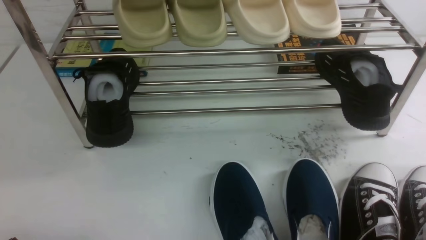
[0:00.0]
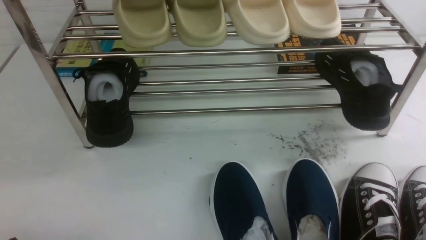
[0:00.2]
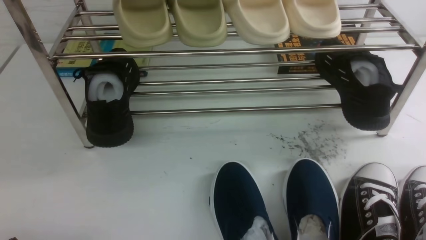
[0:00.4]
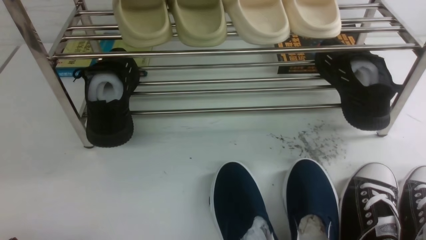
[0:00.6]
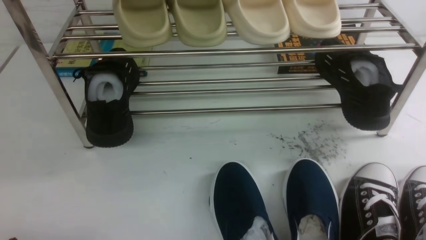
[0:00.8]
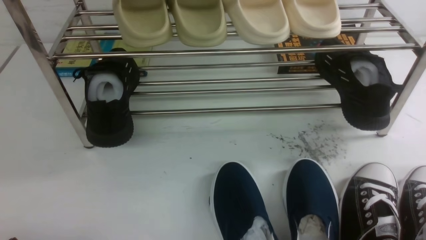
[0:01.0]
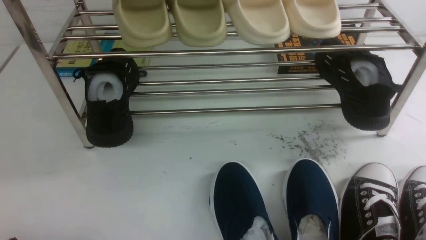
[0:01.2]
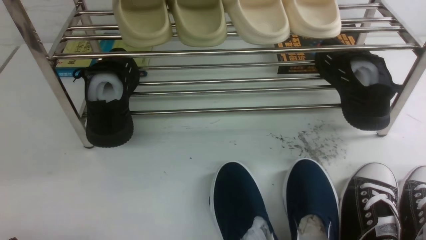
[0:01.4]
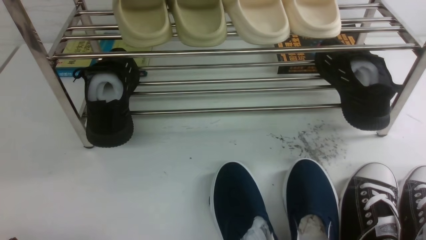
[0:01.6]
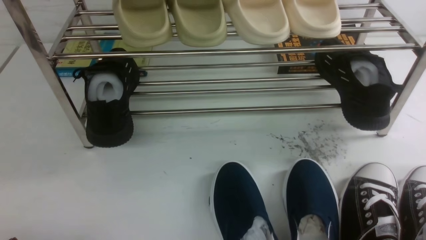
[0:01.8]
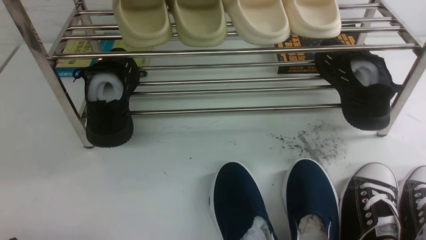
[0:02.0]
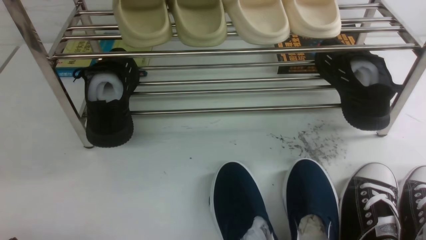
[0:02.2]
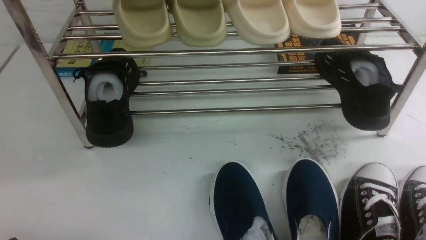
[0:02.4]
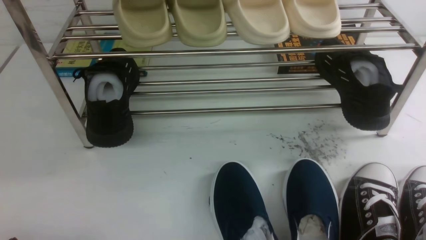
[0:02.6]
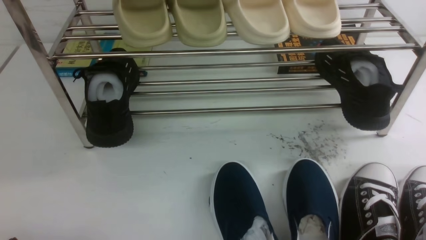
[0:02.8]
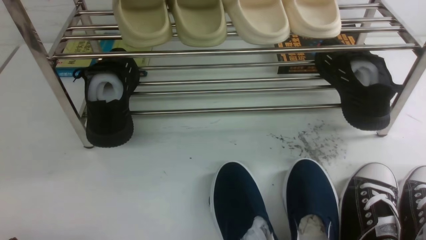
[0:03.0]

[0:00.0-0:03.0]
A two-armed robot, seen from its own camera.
0:01.6 to 0:03.0: The two grippers keep their place.

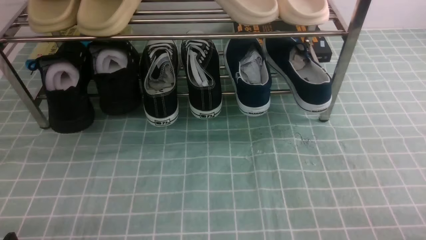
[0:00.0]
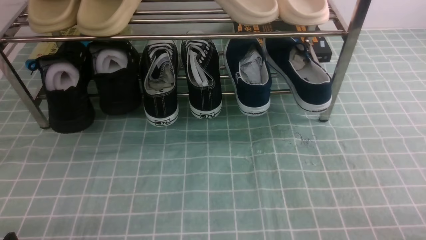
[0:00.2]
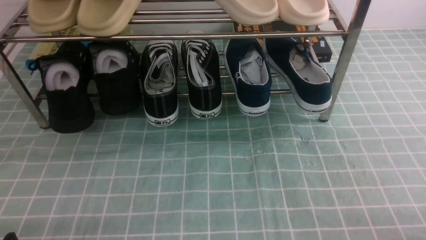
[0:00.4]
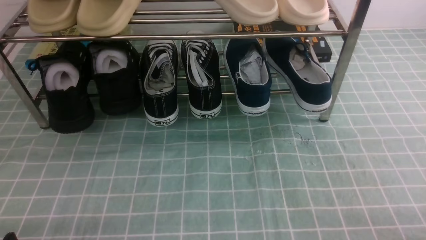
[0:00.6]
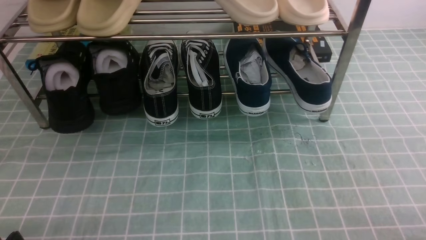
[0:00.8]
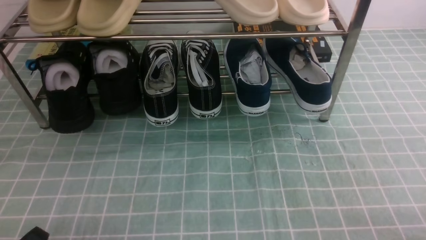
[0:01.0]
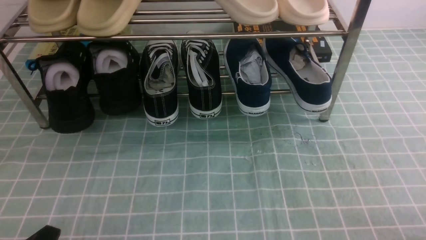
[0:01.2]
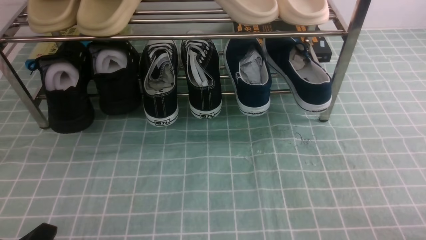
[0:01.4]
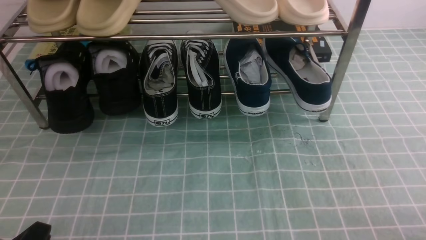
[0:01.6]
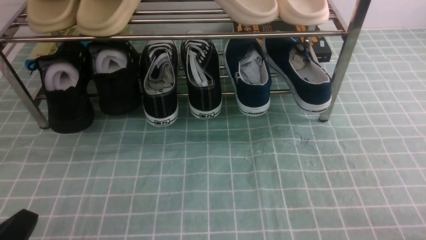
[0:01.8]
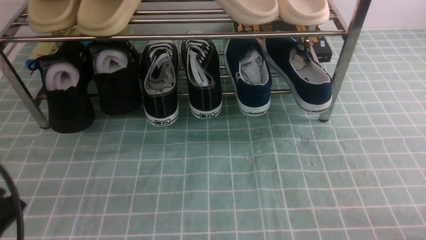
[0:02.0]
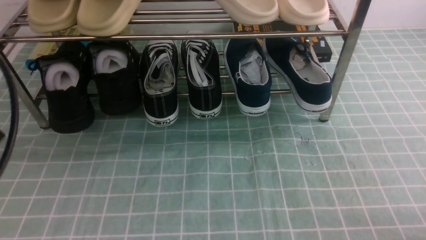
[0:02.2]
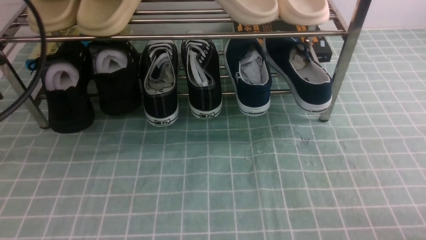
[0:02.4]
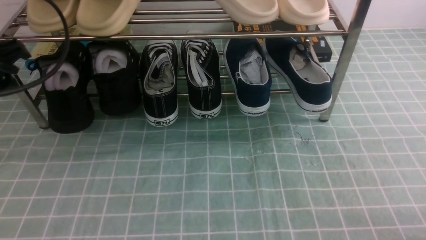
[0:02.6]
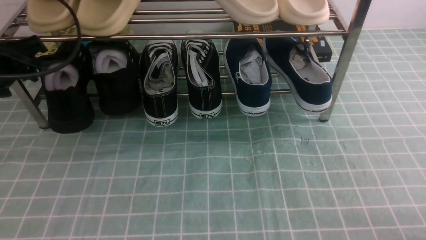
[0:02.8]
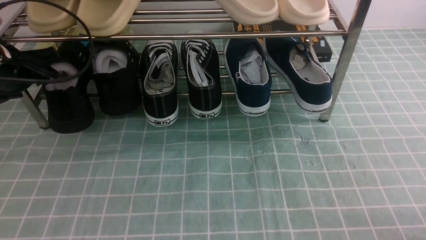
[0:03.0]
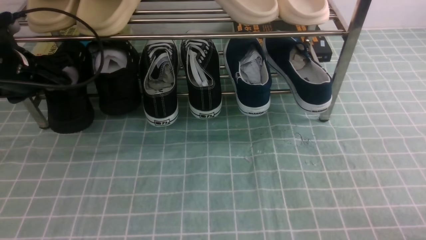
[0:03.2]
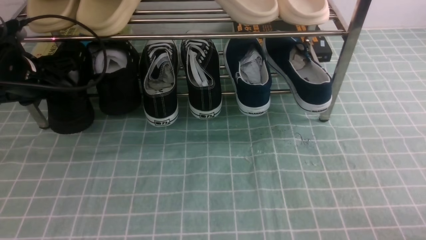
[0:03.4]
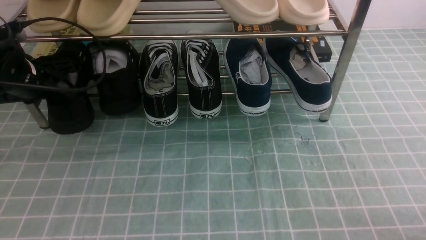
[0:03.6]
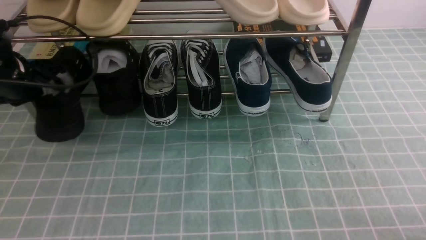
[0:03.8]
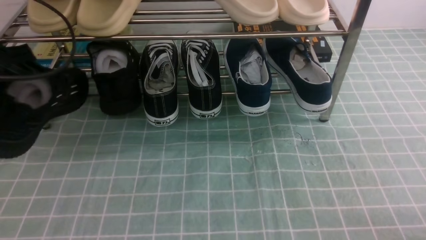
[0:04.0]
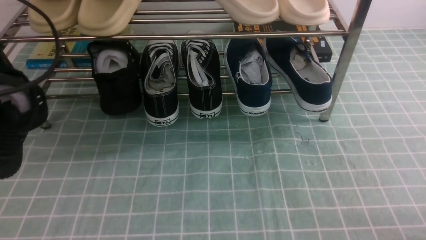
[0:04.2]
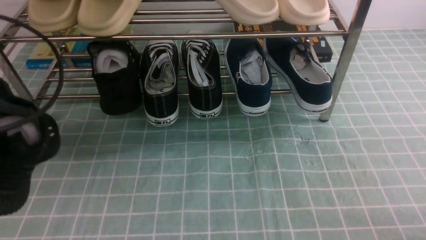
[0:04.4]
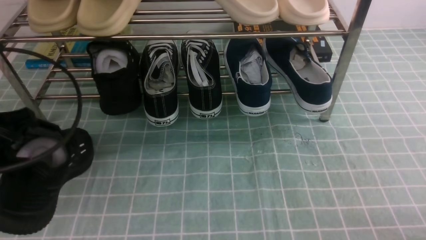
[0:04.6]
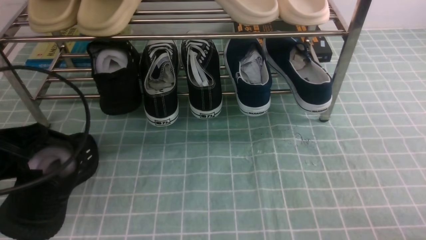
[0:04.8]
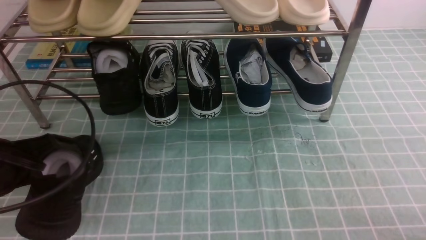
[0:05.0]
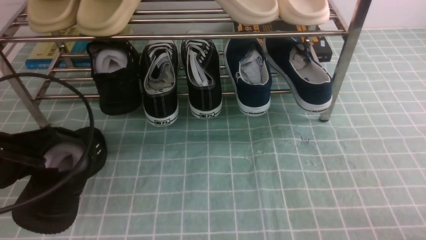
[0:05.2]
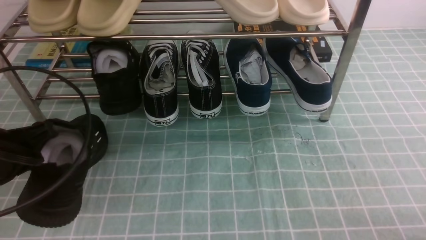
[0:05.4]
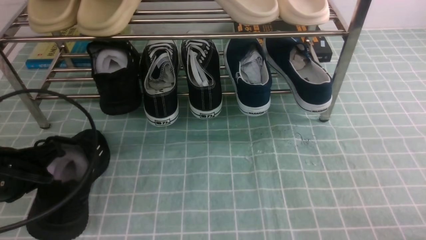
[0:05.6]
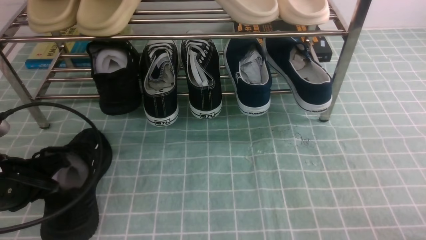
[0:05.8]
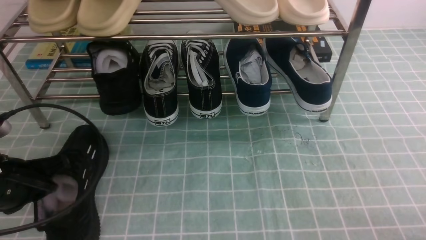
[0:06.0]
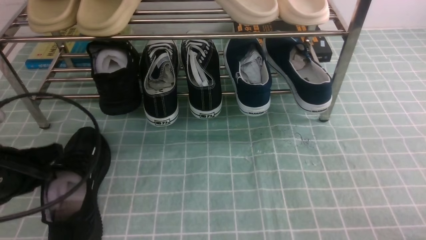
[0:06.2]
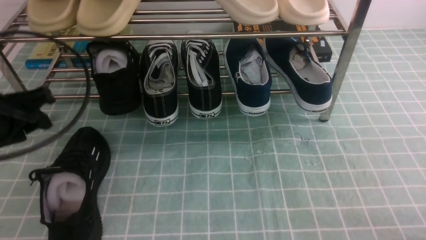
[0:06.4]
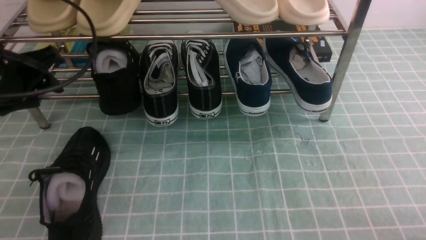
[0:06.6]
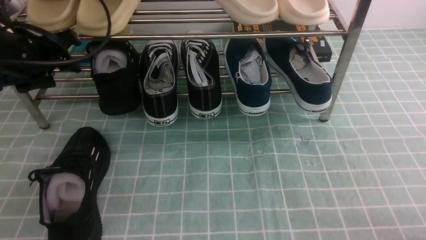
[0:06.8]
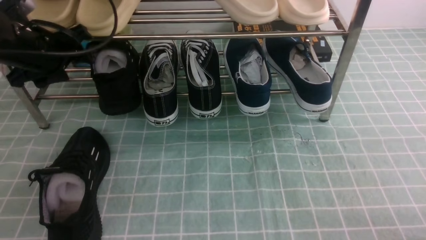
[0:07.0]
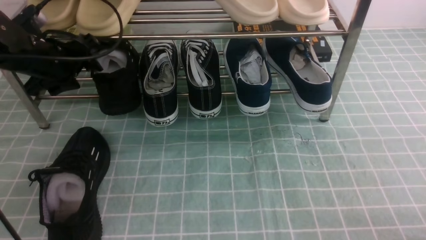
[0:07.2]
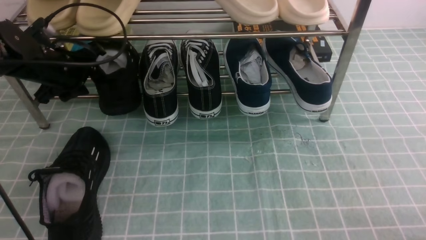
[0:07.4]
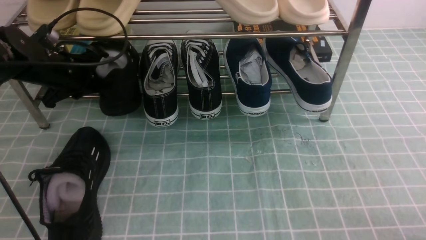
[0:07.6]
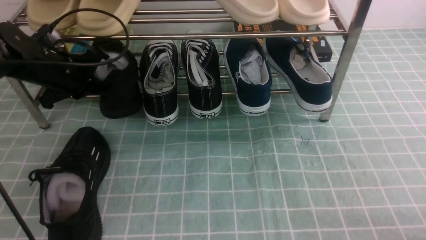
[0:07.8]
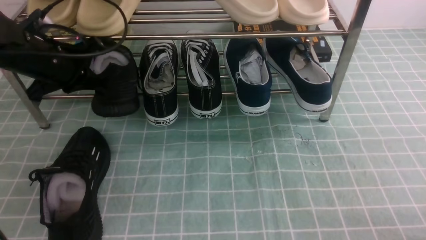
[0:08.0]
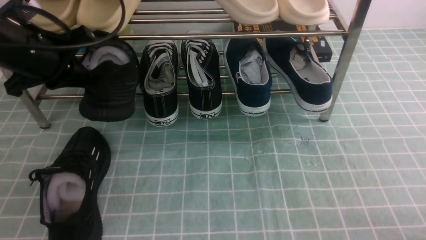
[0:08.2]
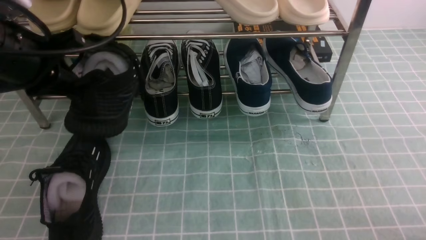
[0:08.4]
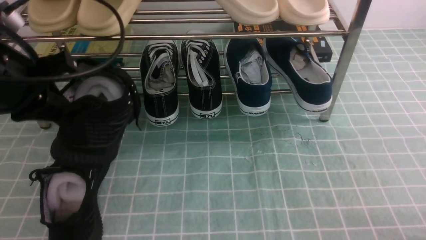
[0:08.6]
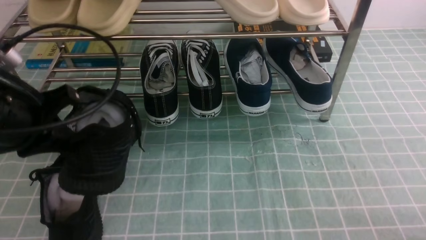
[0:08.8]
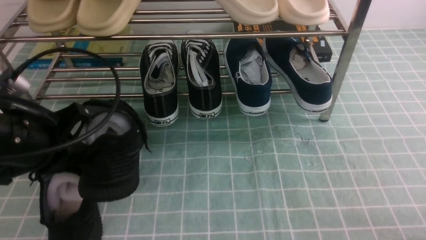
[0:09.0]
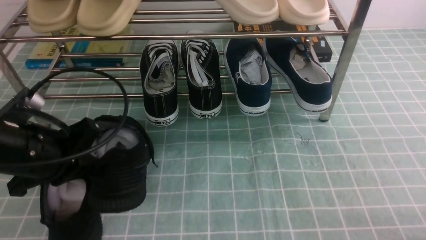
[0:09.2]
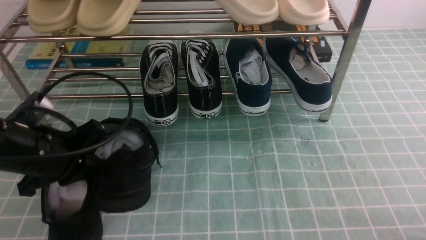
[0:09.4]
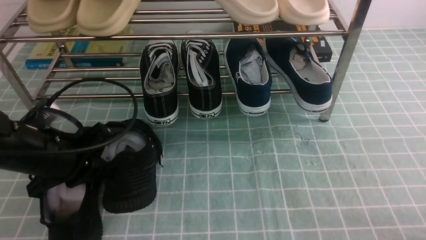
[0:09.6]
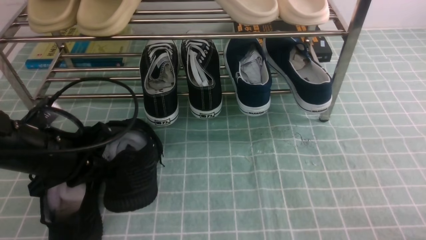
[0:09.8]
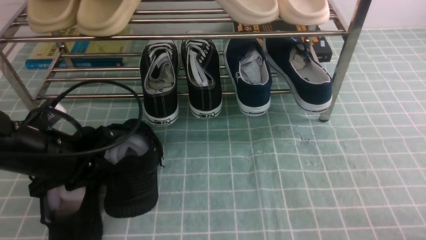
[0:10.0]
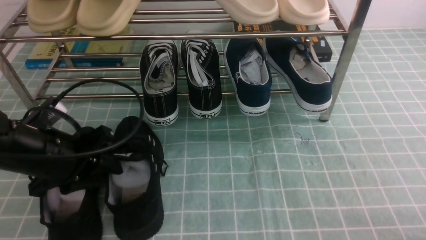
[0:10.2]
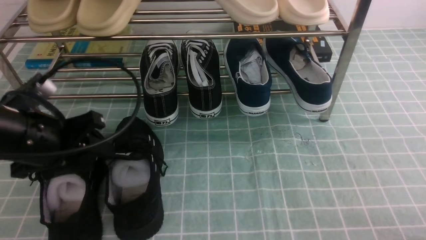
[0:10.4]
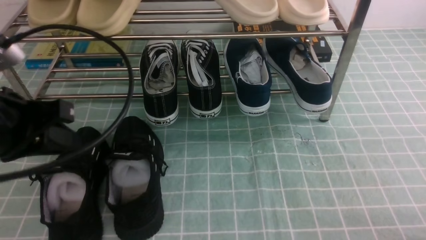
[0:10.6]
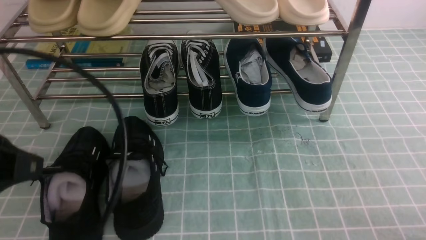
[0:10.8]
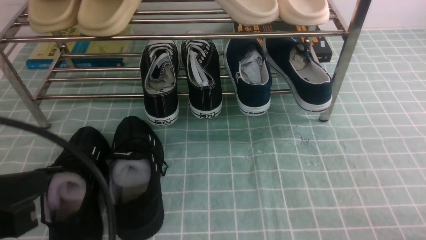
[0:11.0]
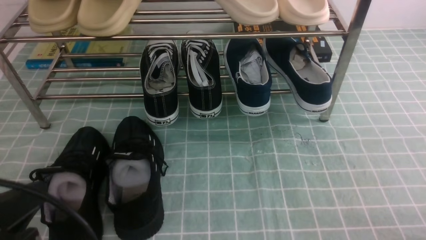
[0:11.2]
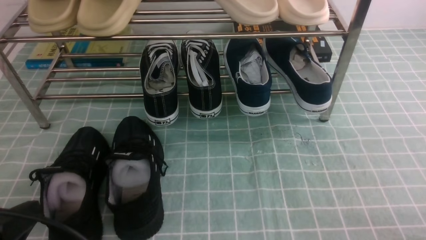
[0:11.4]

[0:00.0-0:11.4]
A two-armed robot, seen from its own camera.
Step, 0:00.0 to 0:03.6: use the left arm to clamp a shoe on the left side of the shoe rack.
Step, 0:03.8 to 0:06.2: Use your left arm to remove the clamped shoe from the shoe rack and put it down.
Step, 0:06.4 to 0:07.6: use the left arm to clamp a shoe on the left side of the shoe rack.
Step, 0:07.8 to 0:10.4: Use your left arm to remove the clamped shoe from the shoe rack and put it down.
0:01.4 to 0:02.8: The left gripper travels forward and upward by some 30 cm, and opens its fingers.
0:02.8 to 0:04.2: The left gripper goes approximately 5 cm backward, and closes.
0:04.2 to 0:05.6: The left gripper heads downward, covering some 10 cm.
0:05.6 to 0:07.2: The left gripper is displaced forward by approximately 20 cm, and opens.
0:07.2 to 0:08.6: The left gripper shifts roughly 15 cm backward and upward, and closes up.
0:08.6 to 0:10.0: The left gripper is displaced downward by some 10 cm.
0:10.0 to 0:11.4: The left gripper travels backward by approximately 20 cm, and closes its fingers.

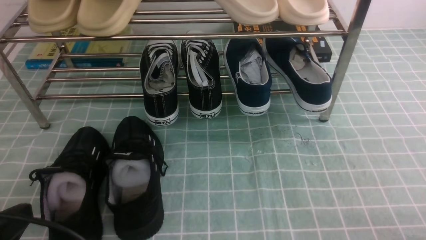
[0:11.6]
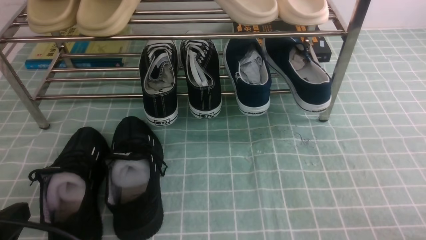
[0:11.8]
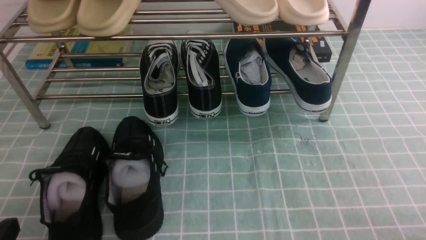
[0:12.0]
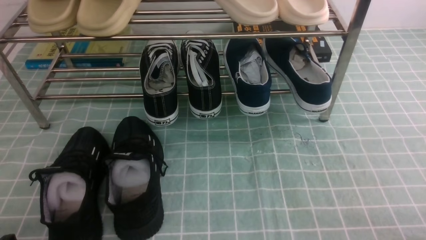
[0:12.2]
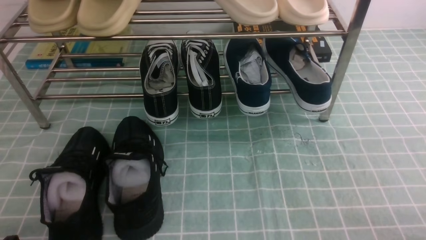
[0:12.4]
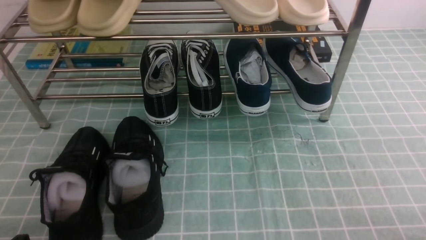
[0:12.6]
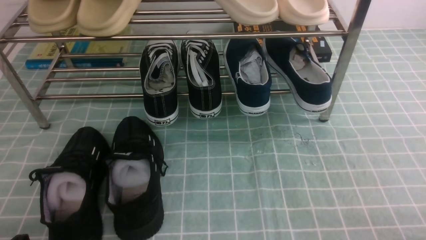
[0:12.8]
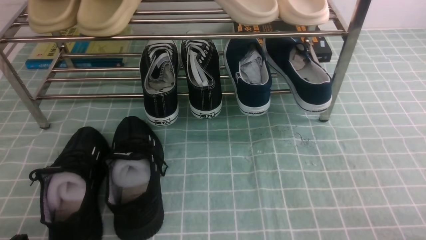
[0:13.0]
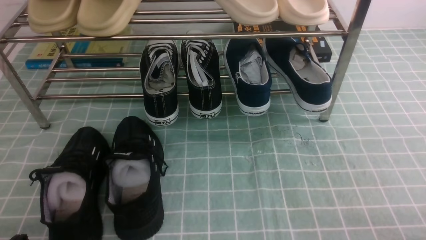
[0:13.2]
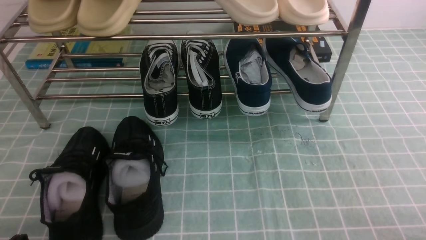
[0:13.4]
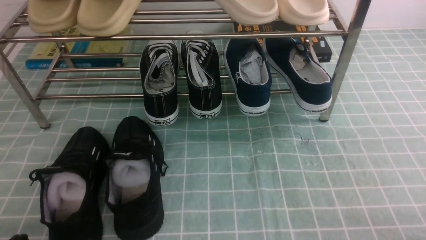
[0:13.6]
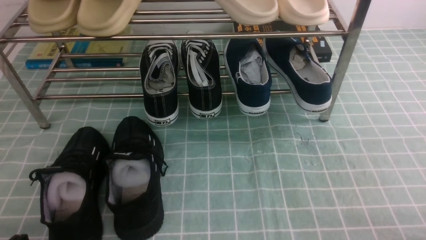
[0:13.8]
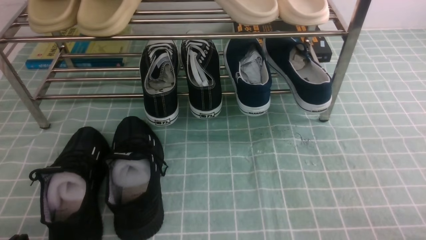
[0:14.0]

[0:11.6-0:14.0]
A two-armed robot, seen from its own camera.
0:11.6 to 0:12.8: The left gripper moves downward, roughly 10 cm.
0:12.8 to 0:14.0: Both grippers stay put.
